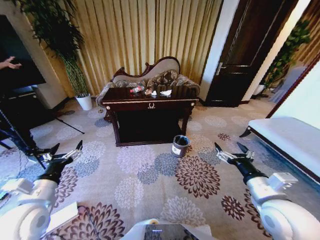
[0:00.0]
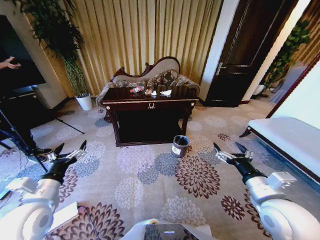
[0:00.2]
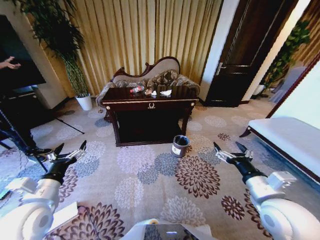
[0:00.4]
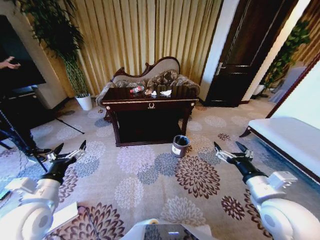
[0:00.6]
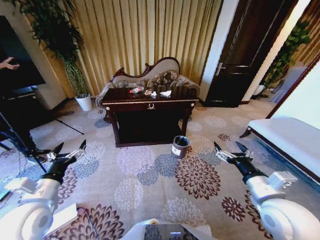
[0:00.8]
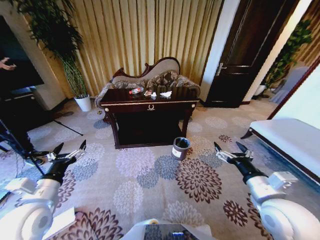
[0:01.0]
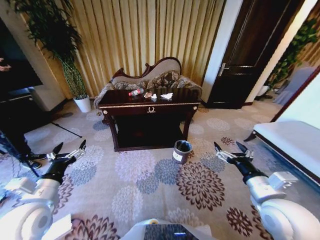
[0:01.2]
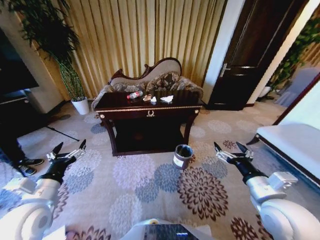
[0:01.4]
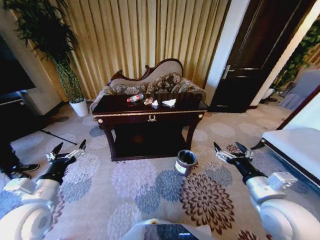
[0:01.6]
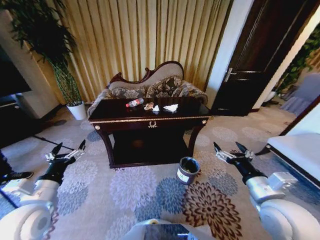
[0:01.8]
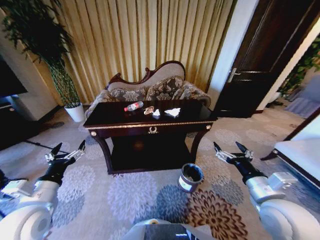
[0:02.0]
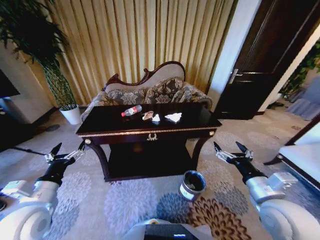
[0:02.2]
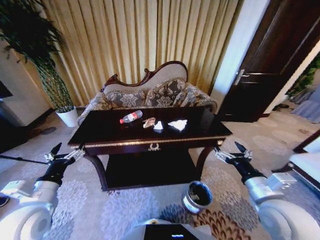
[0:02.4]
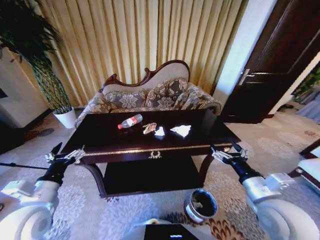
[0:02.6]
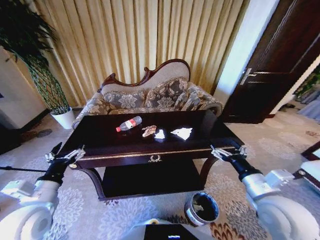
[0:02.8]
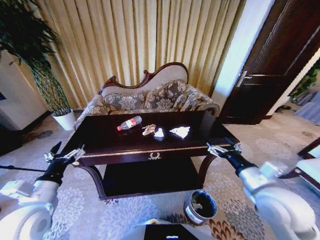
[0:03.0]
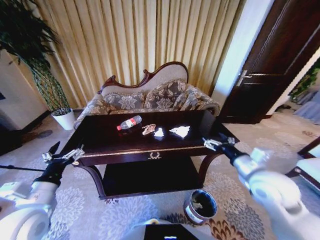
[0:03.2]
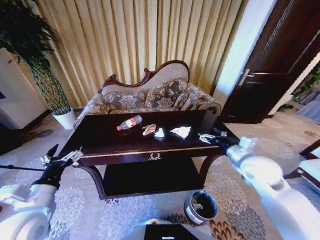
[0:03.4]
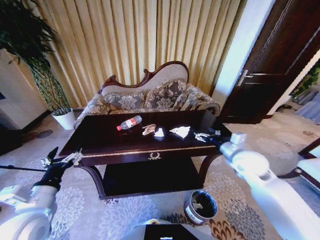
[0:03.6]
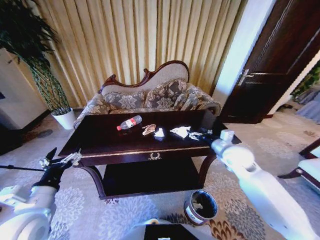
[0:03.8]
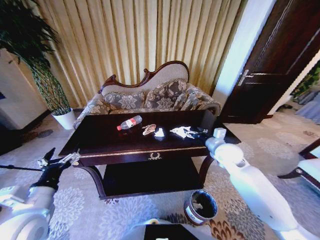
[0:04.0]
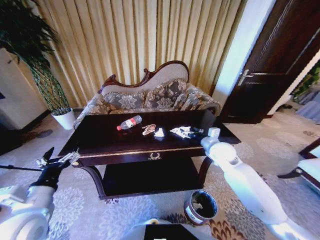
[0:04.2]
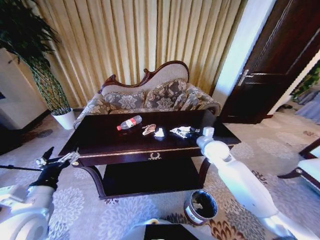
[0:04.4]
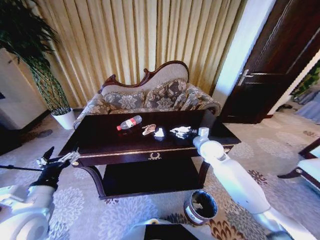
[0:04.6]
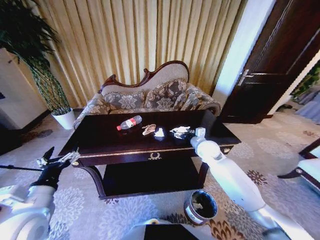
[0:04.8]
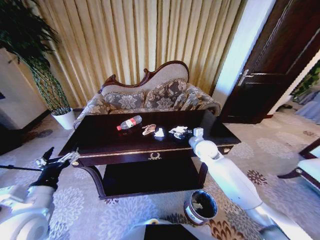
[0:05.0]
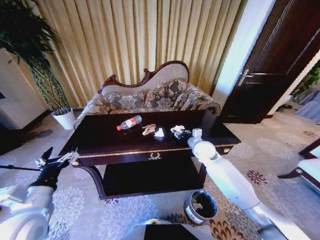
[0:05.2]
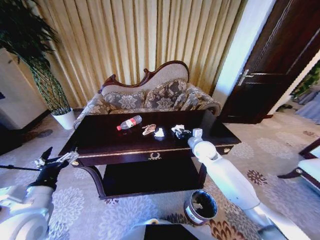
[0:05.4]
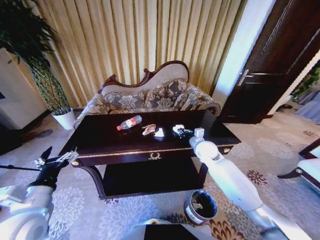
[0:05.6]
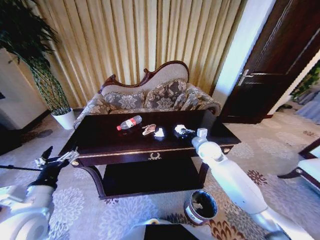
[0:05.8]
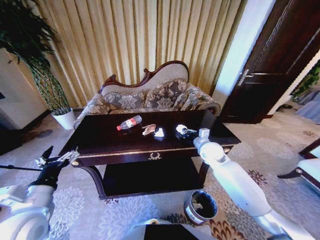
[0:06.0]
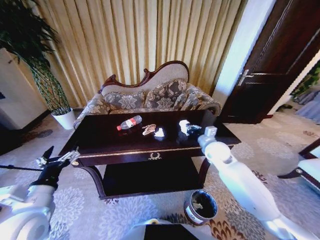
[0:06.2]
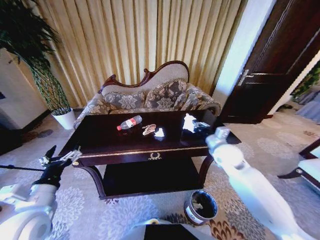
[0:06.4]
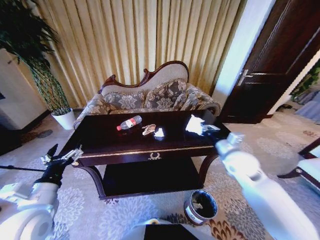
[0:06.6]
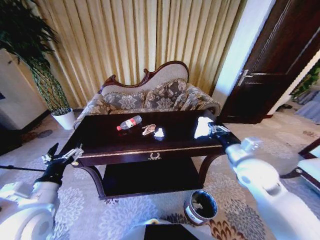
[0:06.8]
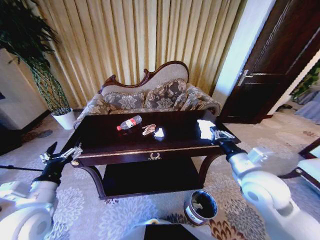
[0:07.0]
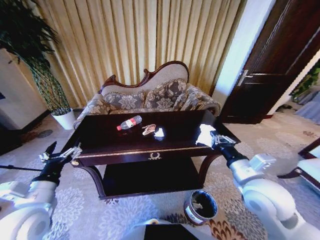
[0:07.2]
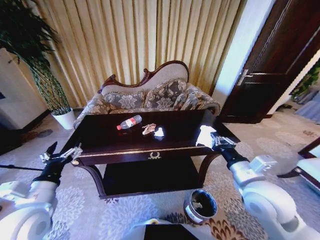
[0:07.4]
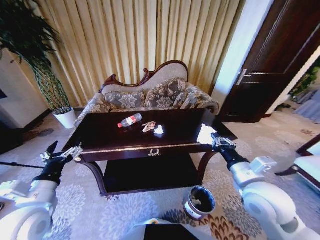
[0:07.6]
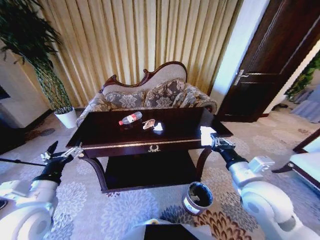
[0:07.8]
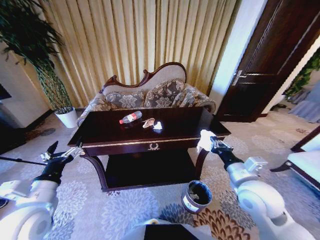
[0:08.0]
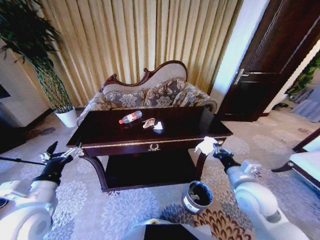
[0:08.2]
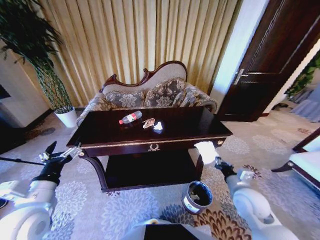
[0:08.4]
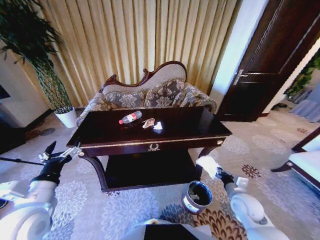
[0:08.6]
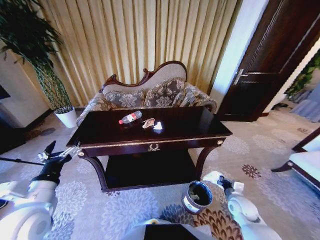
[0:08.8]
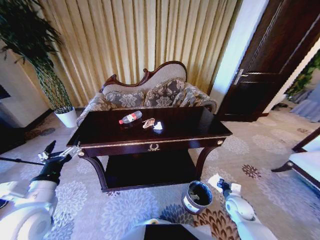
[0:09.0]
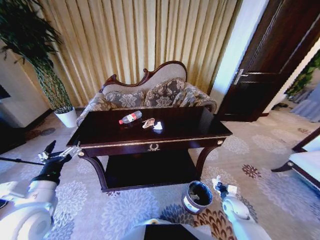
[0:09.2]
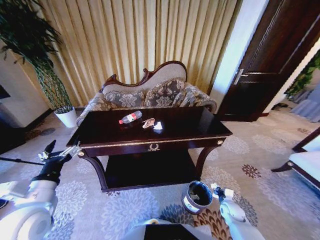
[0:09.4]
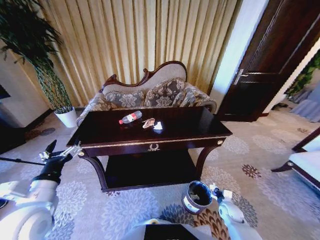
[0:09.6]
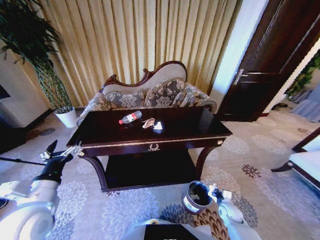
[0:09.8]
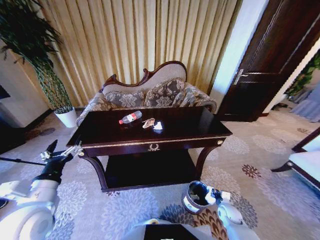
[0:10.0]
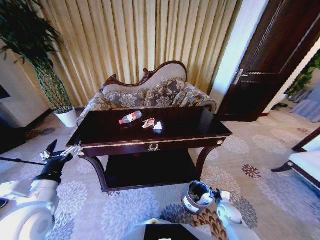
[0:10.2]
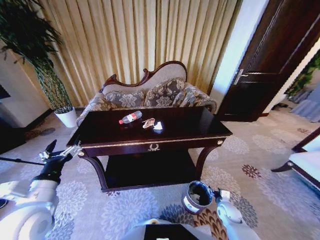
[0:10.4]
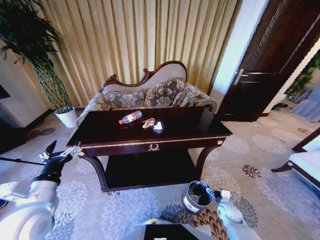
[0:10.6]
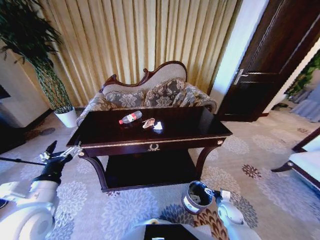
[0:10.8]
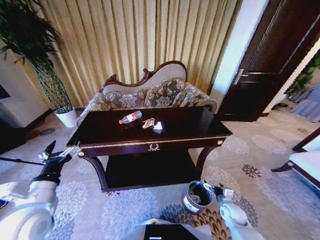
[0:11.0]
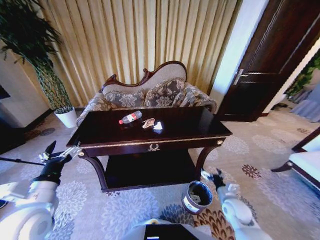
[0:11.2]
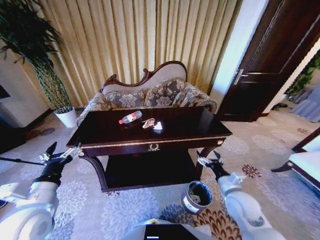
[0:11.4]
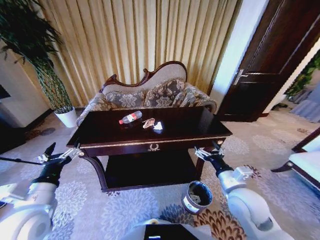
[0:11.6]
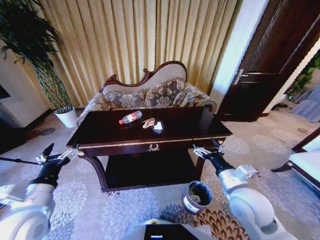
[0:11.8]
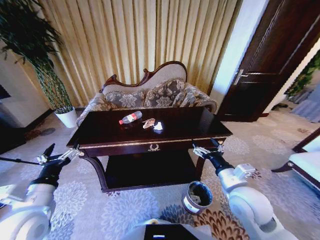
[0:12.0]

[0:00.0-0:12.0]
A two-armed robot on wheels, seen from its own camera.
Task of the whole recording: Move to the front of the table and place the trash on the table into the trash bin.
0:03.0 to 0:04.4: The right gripper heads forward, covering about 25 cm.
0:04.4 to 0:06.0: The right gripper closes up.
0:06.0 to 0:07.6: The right gripper shifts about 20 cm backward.
0:07.6 to 0:09.0: The right gripper heads downward, covering approximately 30 cm.
0:09.0 to 0:10.4: The right gripper moves downward, approximately 10 cm, and opens its fingers.
0:10.4 to 0:12.0: The right gripper heads upward, covering about 30 cm, and opens up.

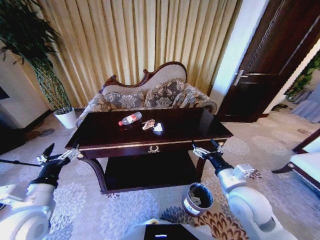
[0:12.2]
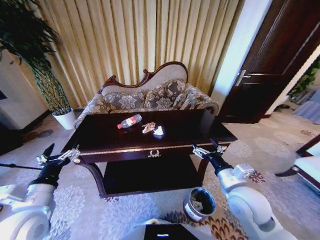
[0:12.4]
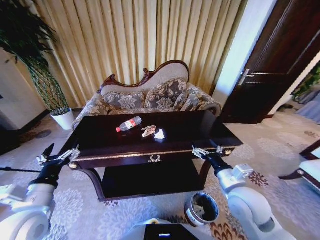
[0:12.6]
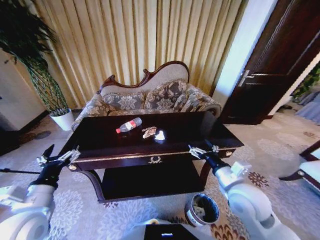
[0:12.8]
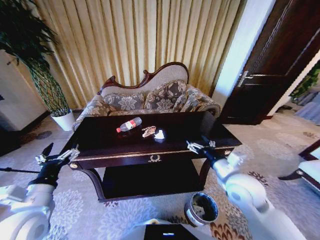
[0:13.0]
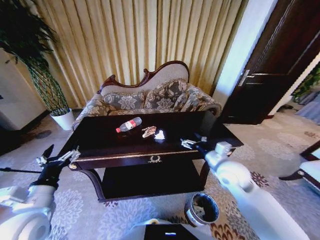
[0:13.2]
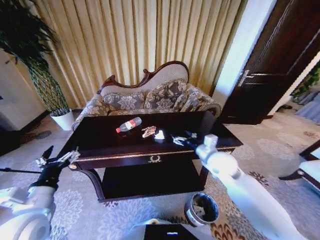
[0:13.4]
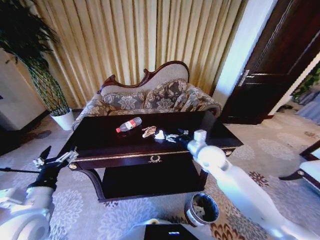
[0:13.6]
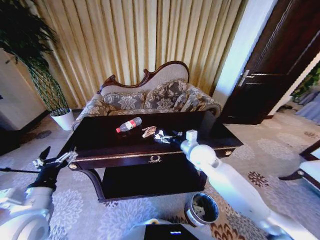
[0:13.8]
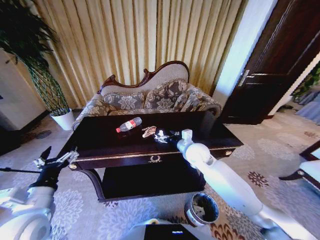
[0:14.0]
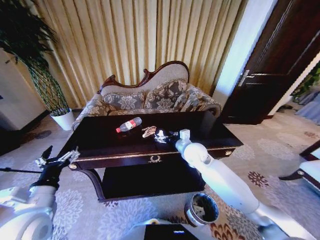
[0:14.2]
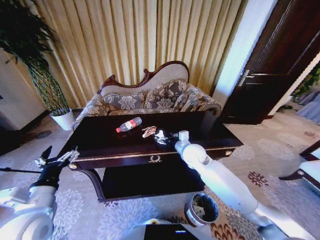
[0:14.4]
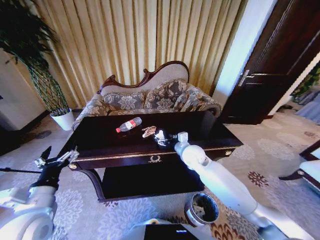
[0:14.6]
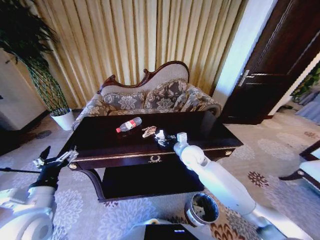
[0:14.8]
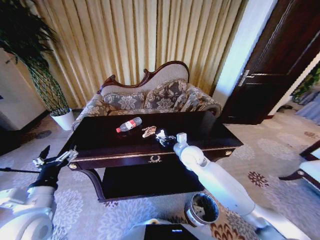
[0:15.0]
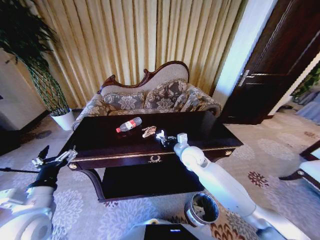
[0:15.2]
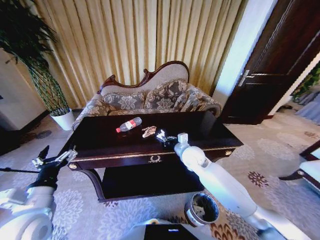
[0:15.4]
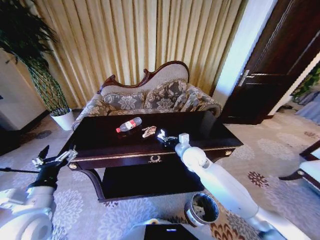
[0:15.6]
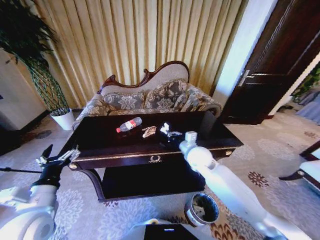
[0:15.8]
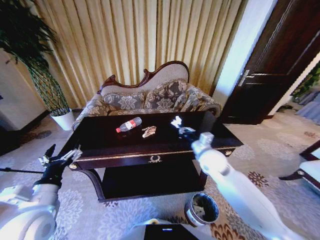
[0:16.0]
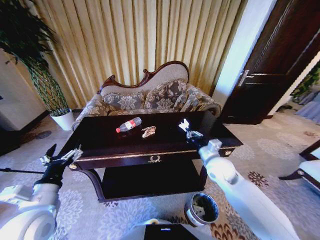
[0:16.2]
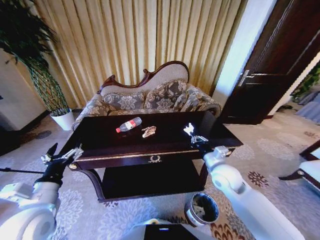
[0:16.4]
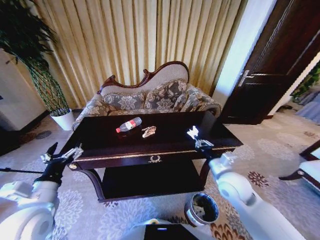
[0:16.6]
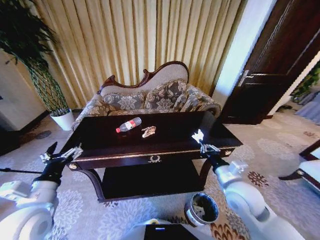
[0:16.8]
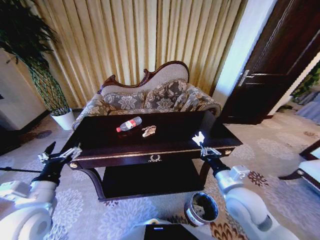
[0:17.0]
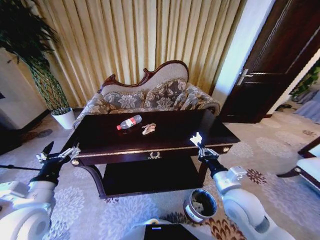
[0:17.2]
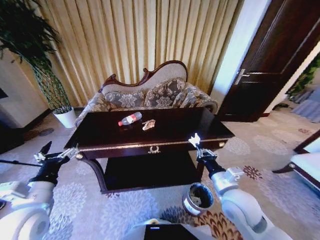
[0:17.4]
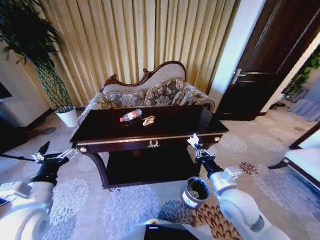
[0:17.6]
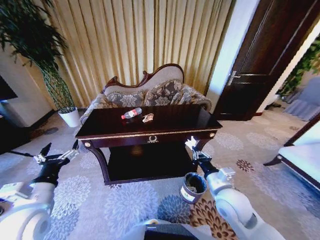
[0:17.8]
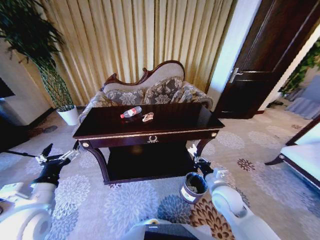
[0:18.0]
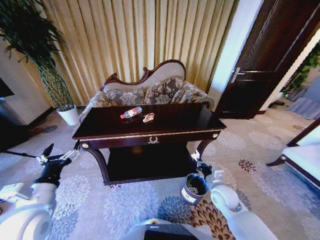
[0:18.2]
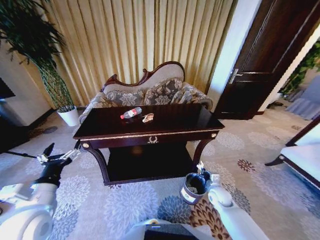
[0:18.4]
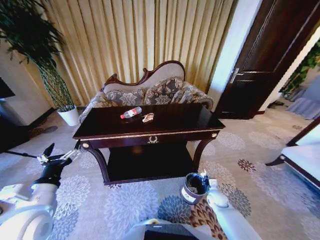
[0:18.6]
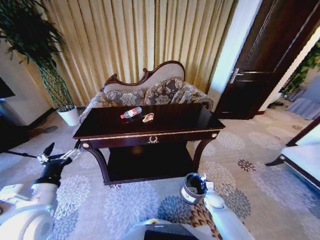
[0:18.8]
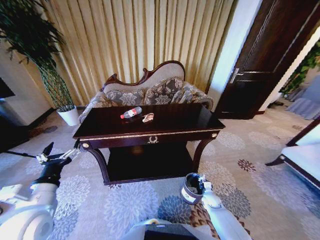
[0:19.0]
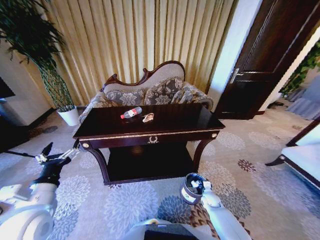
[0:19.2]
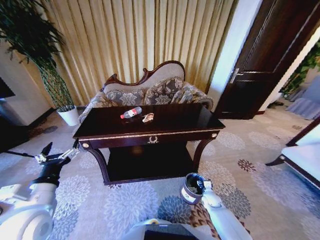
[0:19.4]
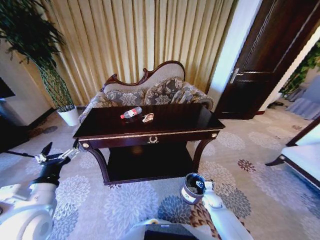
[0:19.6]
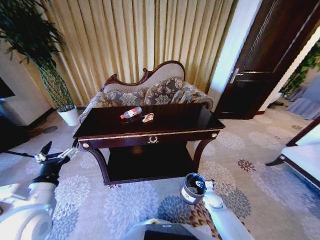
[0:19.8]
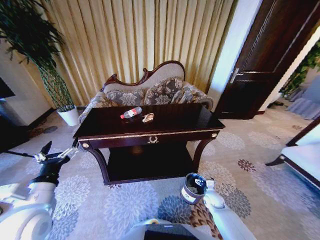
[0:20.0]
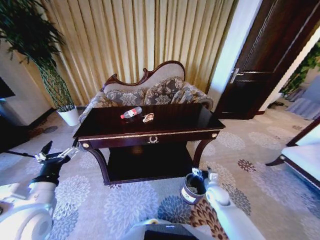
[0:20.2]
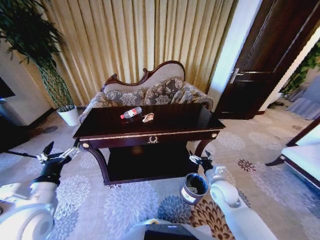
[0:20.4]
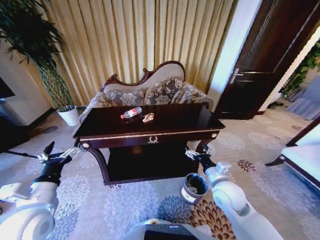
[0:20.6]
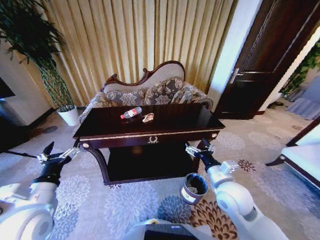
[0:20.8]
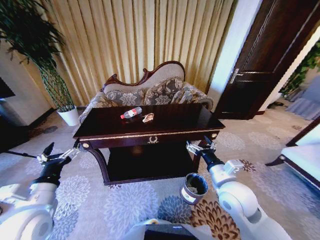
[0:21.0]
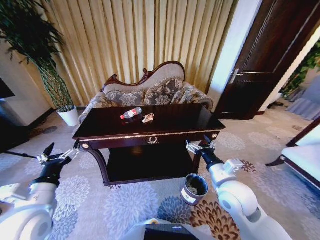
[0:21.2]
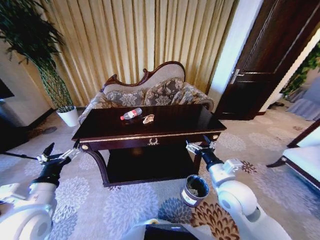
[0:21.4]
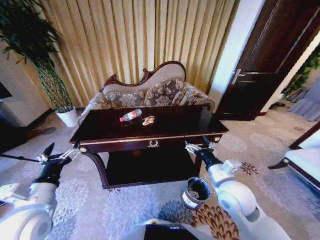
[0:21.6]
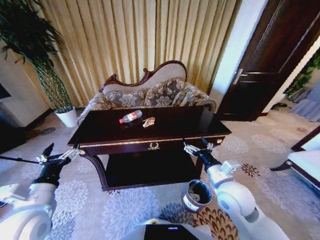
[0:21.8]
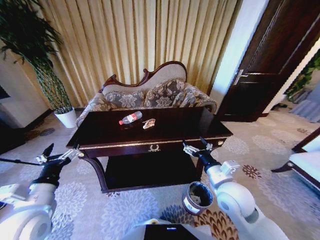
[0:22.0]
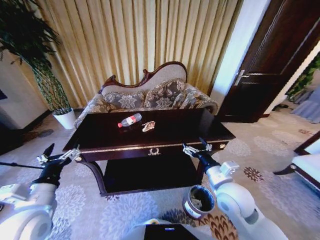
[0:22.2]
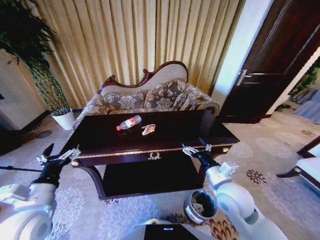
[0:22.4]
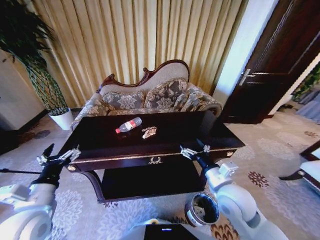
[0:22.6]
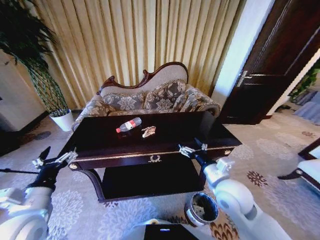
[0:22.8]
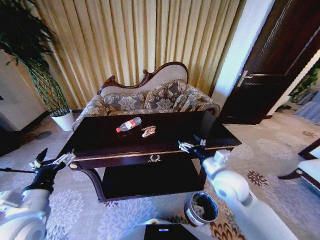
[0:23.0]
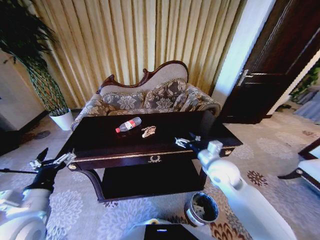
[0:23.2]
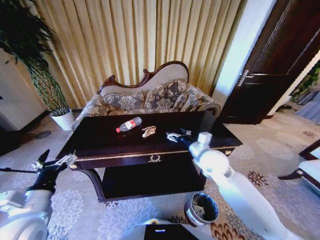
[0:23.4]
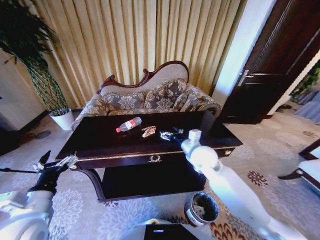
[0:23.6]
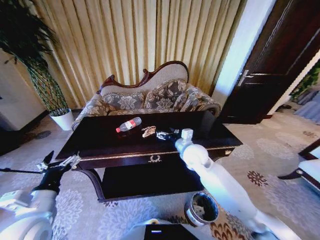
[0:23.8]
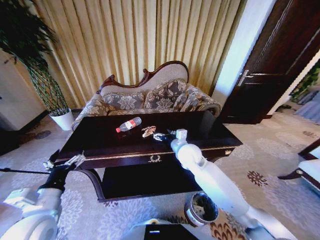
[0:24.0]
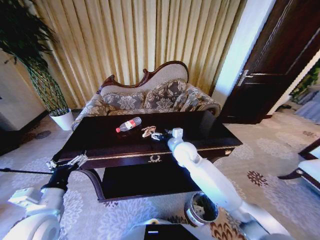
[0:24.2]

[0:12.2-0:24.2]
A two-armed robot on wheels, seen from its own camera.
Task of the whole recording: Move to the front of the table and place the trash on the table into the trash bin.
0:12.2 to 0:13.8: The right gripper moves forward and to the left, some 20 cm.
0:13.8 to 0:15.2: The right gripper closes.
0:15.2 to 0:16.6: The right gripper goes about 15 cm backward and to the right.
0:16.6 to 0:18.2: The right gripper travels downward by approximately 15 cm.
0:18.2 to 0:19.8: The right gripper goes approximately 20 cm downward, and opens up.
0:19.8 to 0:21.2: The right gripper is displaced upward by approximately 35 cm.
0:22.6 to 0:24.2: The right gripper heads forward and to the left, covering about 20 cm.
